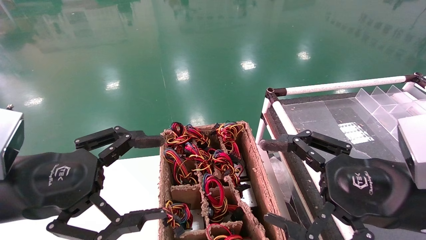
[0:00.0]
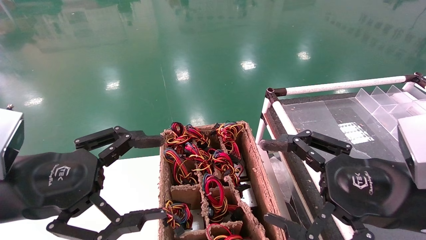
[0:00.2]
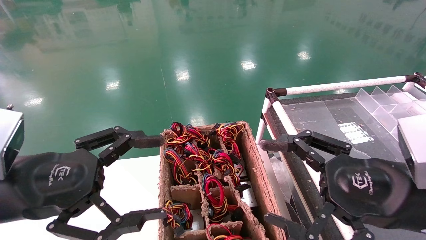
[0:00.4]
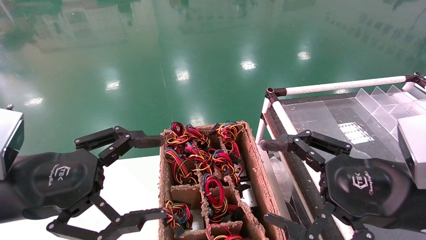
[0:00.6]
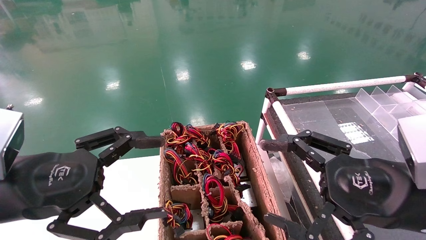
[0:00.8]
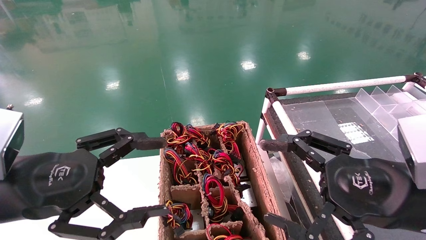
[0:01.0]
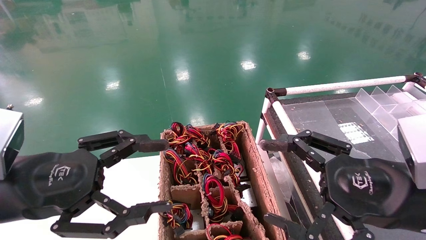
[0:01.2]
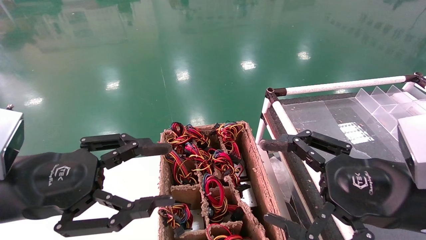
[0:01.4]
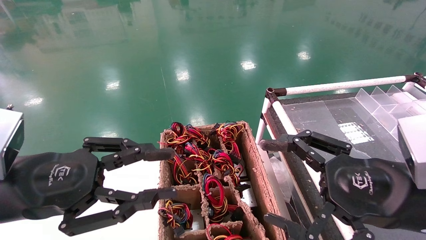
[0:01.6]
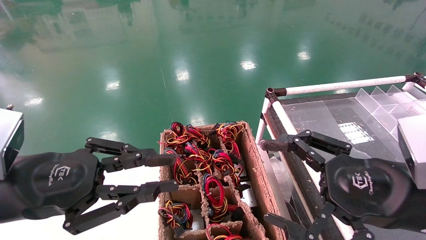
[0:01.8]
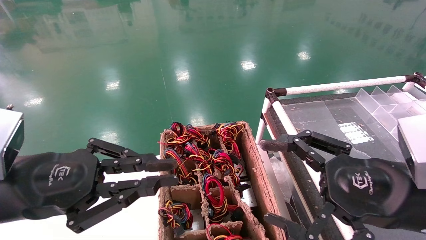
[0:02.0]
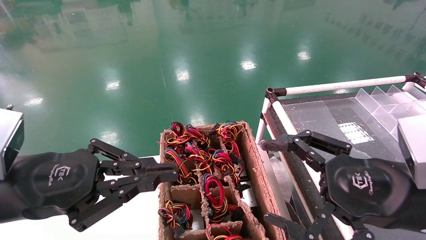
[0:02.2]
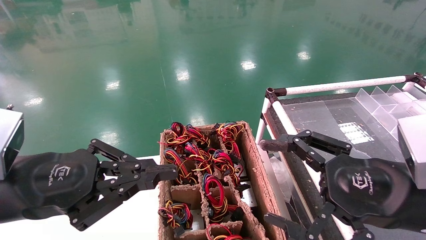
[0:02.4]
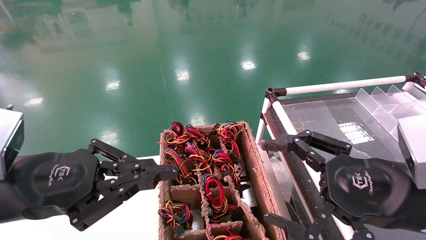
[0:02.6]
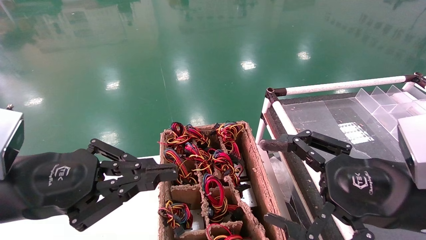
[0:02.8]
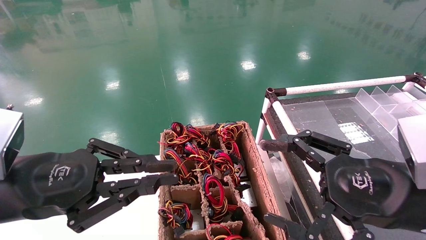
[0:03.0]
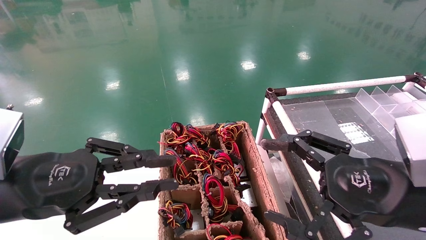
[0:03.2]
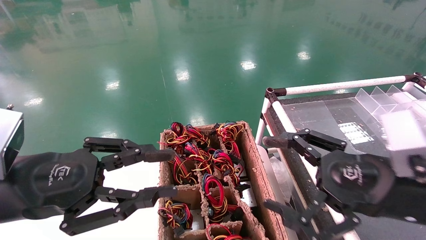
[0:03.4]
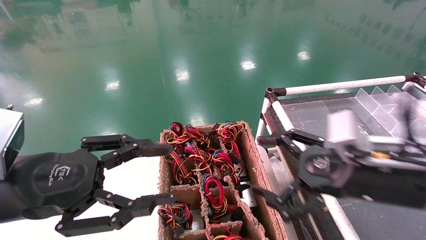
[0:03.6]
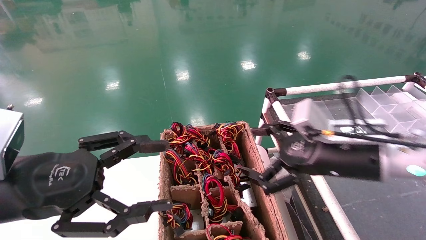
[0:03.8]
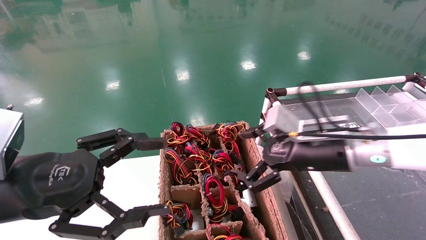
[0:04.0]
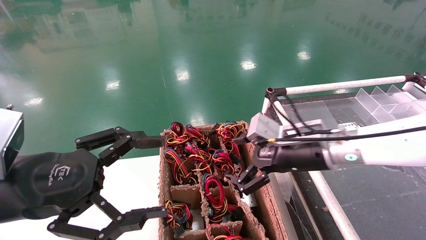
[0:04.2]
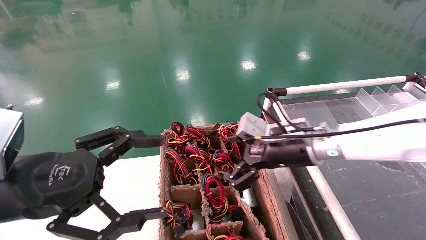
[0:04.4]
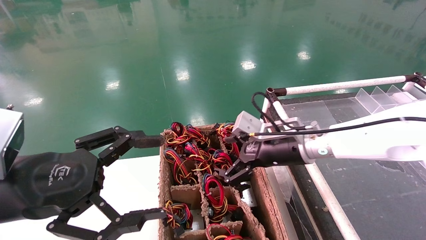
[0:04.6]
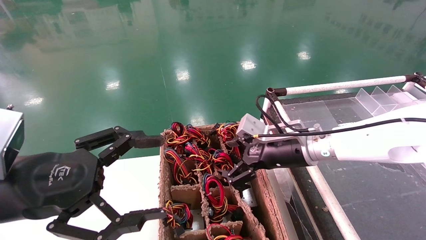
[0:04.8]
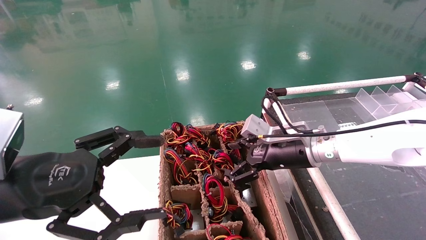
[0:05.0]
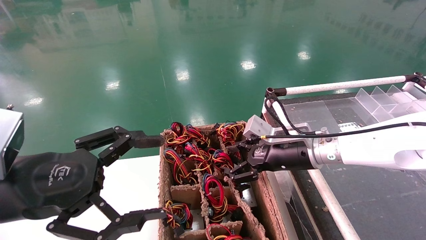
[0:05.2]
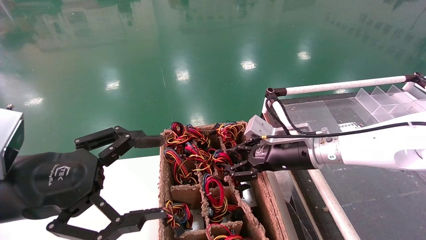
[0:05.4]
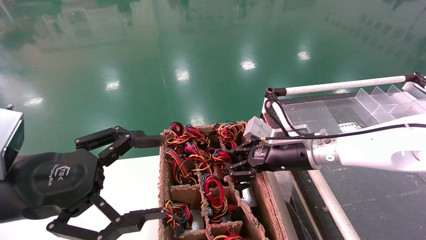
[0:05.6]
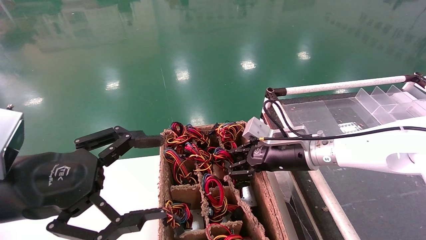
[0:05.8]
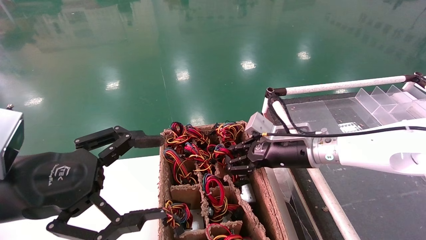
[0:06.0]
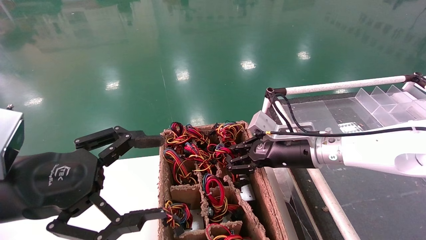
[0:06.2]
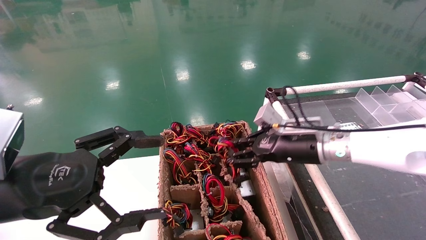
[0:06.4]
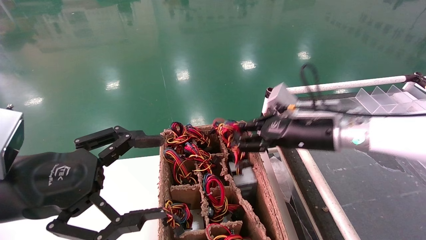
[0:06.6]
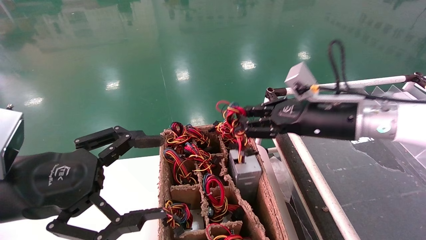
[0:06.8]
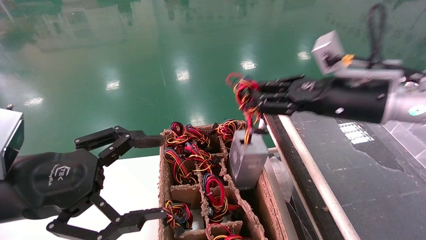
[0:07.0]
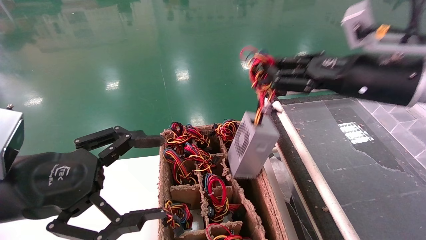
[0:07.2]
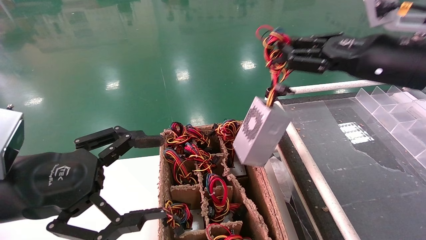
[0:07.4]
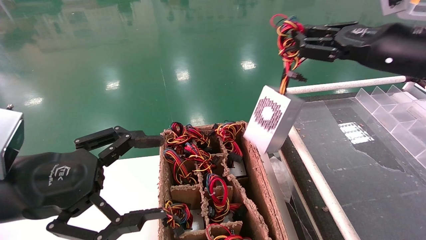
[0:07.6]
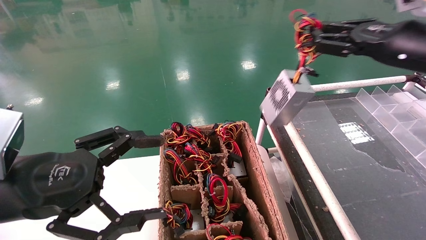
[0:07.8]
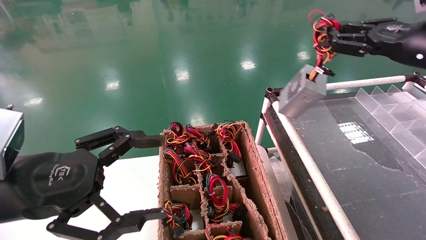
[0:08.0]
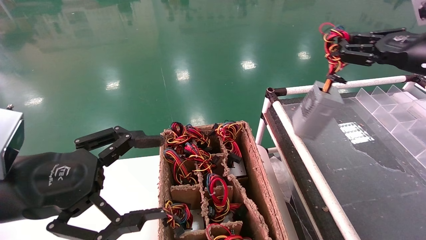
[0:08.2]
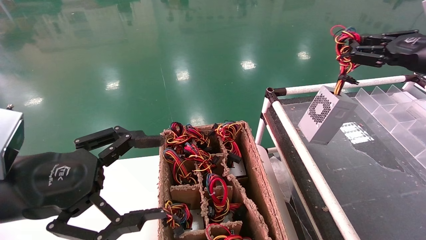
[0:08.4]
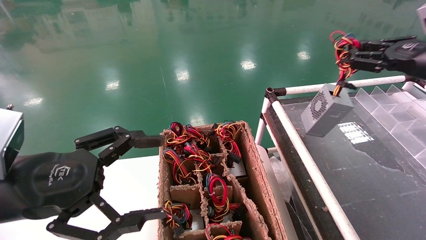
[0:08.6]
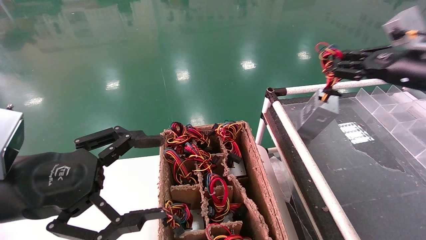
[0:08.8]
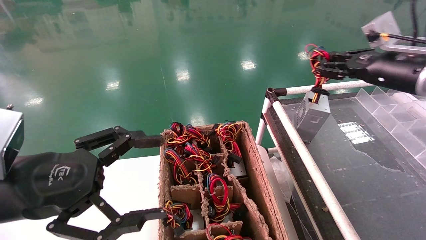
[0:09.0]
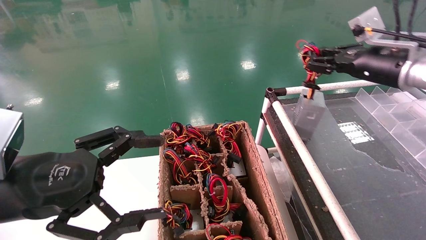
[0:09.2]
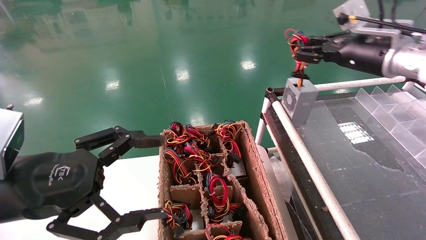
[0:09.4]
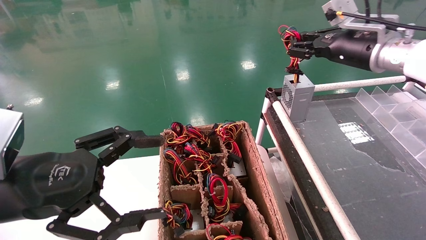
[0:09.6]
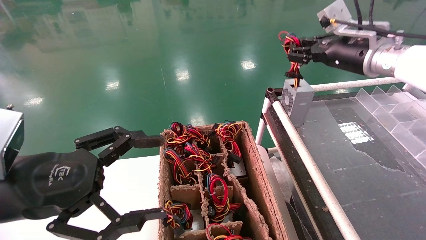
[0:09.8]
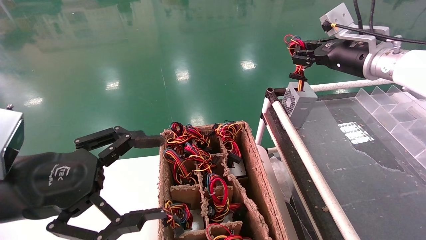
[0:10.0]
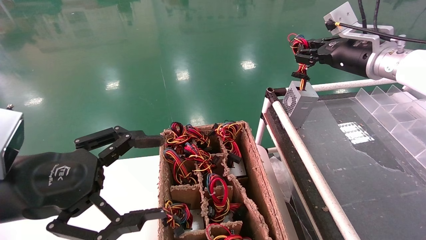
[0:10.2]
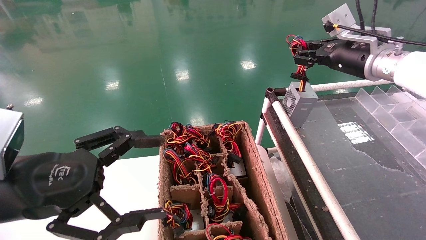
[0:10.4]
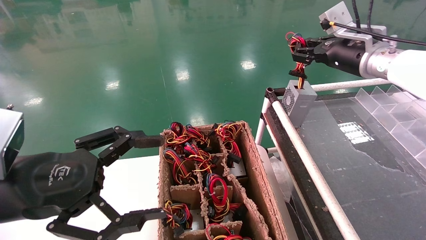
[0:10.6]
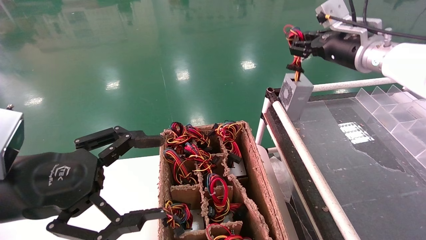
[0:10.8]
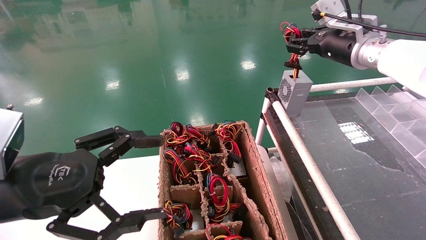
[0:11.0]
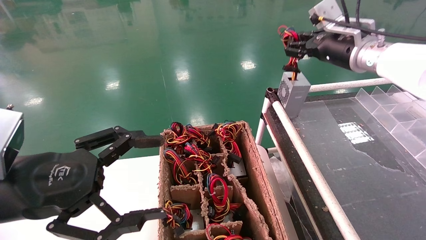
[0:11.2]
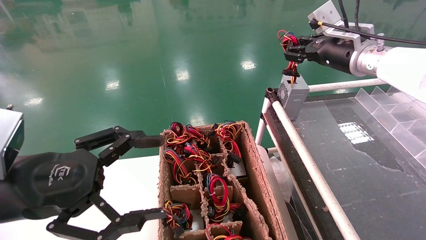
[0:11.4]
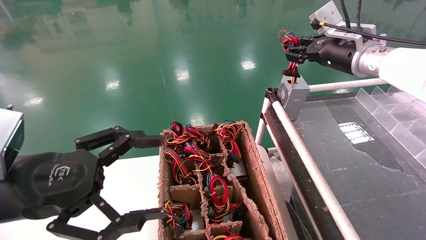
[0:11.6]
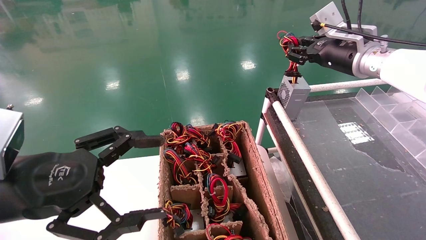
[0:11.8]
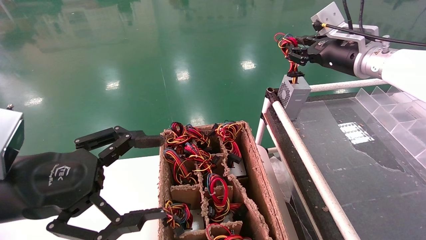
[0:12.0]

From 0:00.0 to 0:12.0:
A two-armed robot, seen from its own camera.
Step, from 0:02.4 to 0:06.0: Grab and lift the power supply from the large box.
Step, from 0:06.2 to 0:12.0: Place the power supply on the operating table.
From 0:00.0 to 0:01.6: The left gripper closes up.
From 0:01.6 to 0:03.0: The left gripper closes.
From 0:03.0 to 0:04.4: The right gripper travels forward and to the left by approximately 20 cm. The left gripper opens its fingers.
From 0:04.4 to 0:06.0: The right gripper closes its fingers.
From 0:06.0 to 0:07.6: The right gripper shifts about 25 cm upward and to the right.
From 0:07.6 to 0:09.0: The right gripper is displaced forward by about 5 cm.
From 0:09.0 to 0:10.4: The right gripper heads to the left and forward, covering approximately 10 cm.
From 0:10.4 to 0:12.0: There are only small adjustments of the grippers.

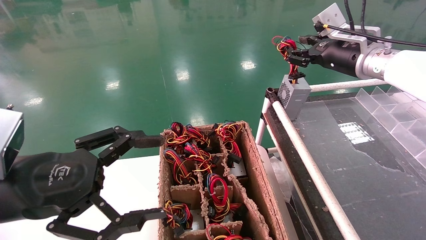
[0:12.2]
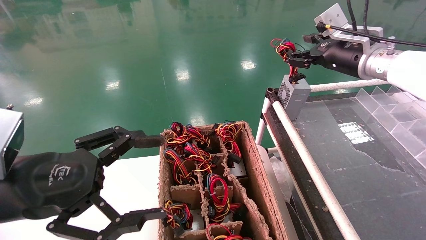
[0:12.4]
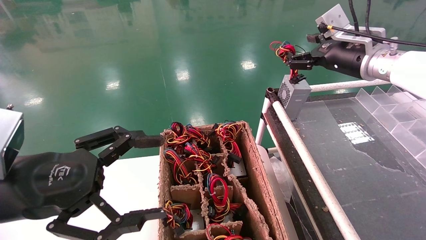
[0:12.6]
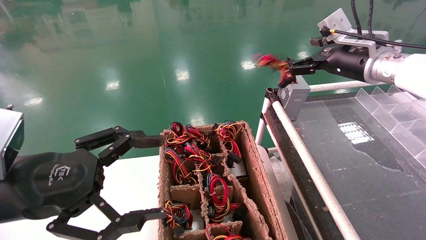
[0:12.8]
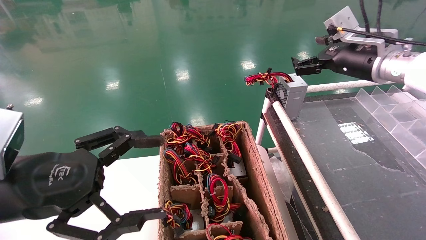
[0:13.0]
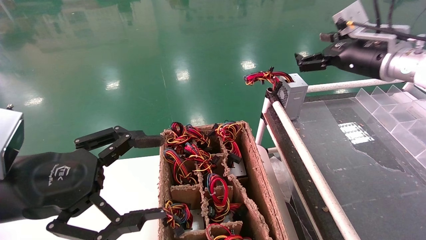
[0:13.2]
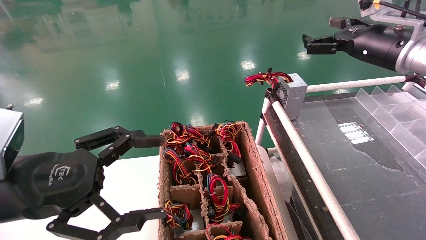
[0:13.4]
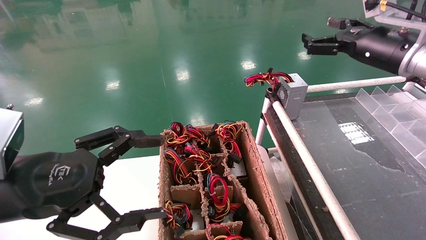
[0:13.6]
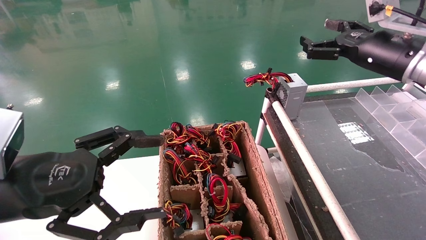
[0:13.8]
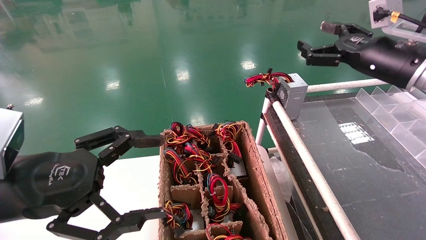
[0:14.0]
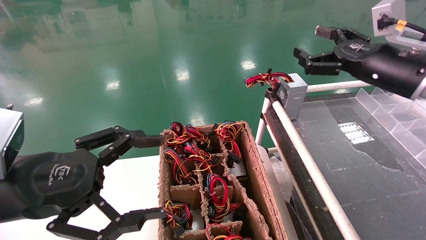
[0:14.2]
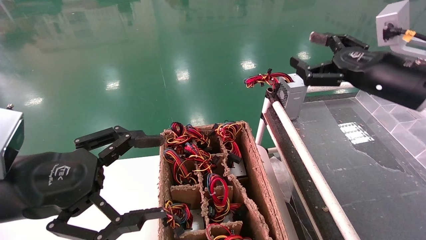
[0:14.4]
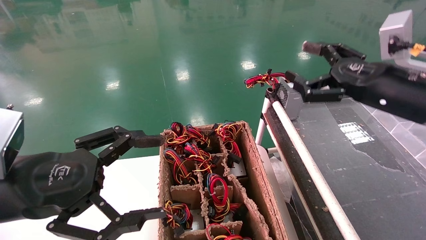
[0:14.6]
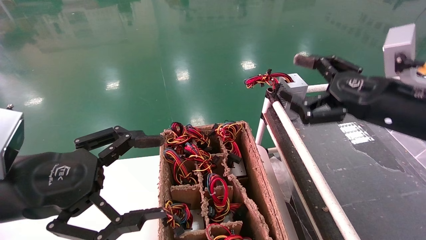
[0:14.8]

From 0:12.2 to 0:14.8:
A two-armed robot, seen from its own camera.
From 0:12.2 to 0:13.4: The right gripper moves some 5 cm, and opens.
From 0:13.4 to 0:14.8: The right gripper travels backward and downward by approximately 15 cm.
